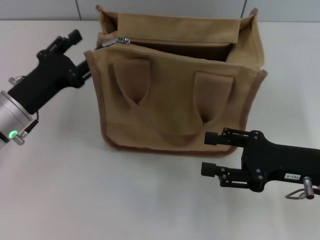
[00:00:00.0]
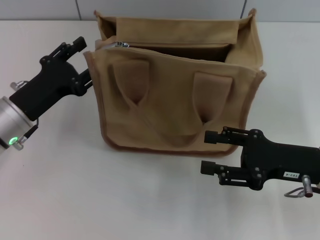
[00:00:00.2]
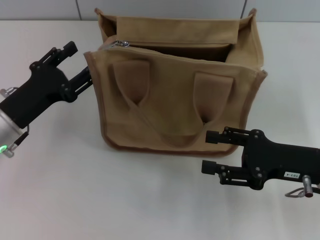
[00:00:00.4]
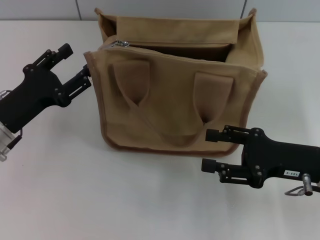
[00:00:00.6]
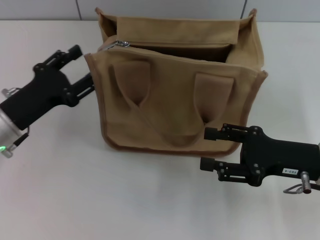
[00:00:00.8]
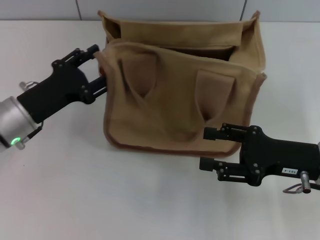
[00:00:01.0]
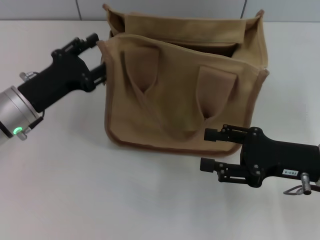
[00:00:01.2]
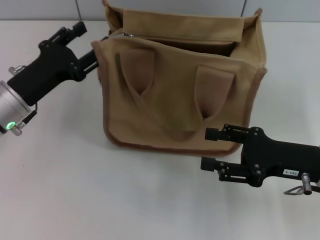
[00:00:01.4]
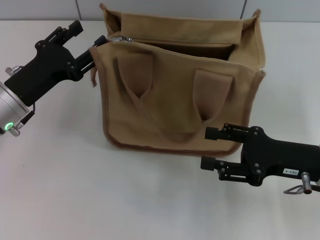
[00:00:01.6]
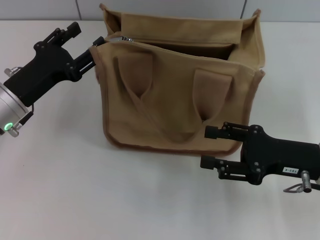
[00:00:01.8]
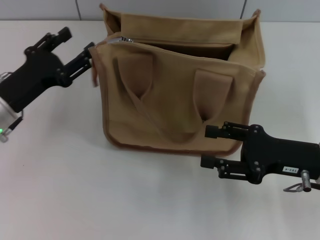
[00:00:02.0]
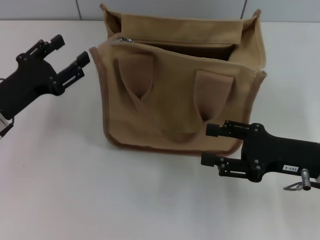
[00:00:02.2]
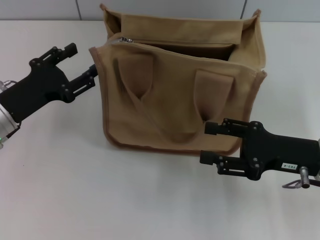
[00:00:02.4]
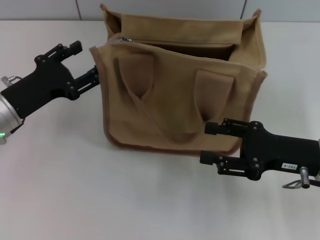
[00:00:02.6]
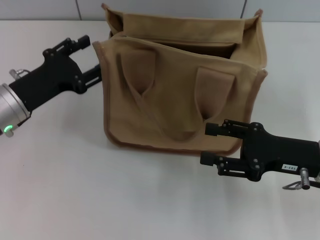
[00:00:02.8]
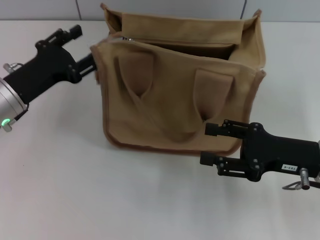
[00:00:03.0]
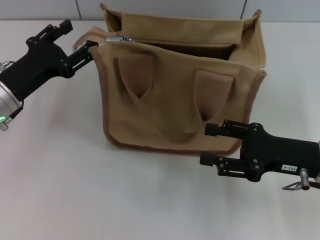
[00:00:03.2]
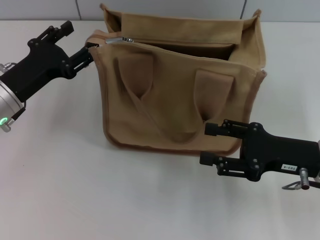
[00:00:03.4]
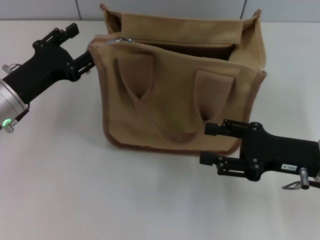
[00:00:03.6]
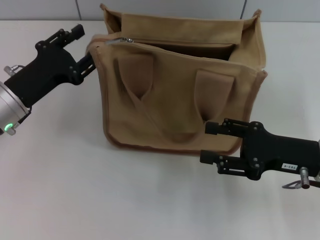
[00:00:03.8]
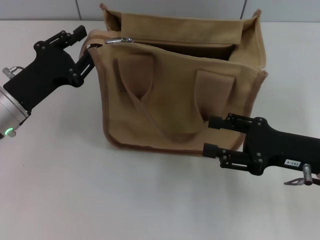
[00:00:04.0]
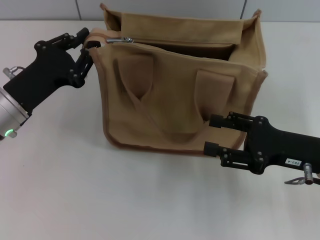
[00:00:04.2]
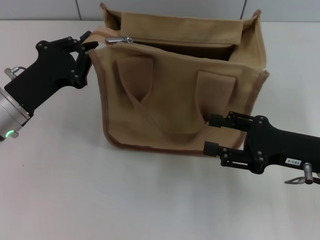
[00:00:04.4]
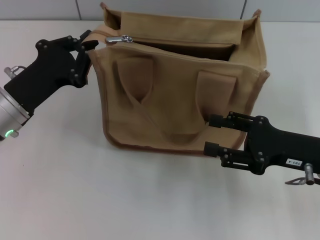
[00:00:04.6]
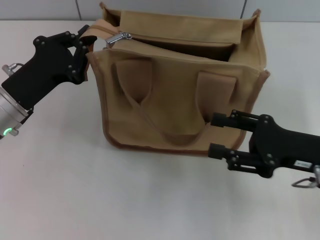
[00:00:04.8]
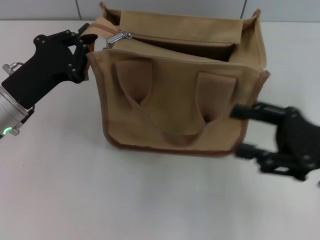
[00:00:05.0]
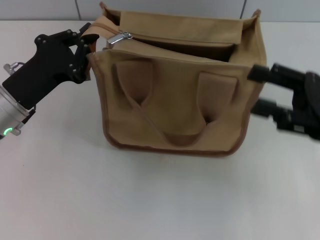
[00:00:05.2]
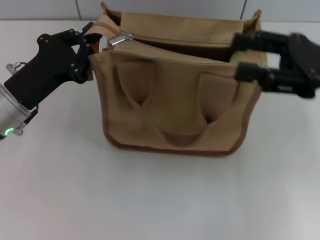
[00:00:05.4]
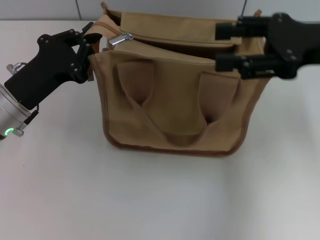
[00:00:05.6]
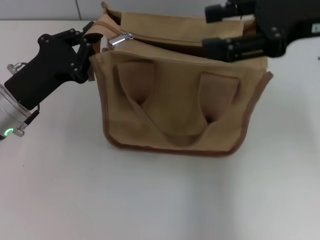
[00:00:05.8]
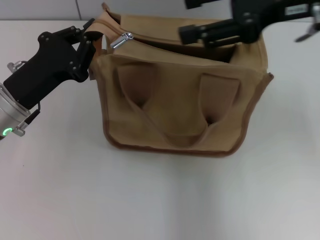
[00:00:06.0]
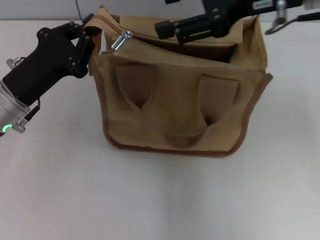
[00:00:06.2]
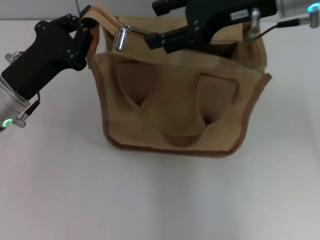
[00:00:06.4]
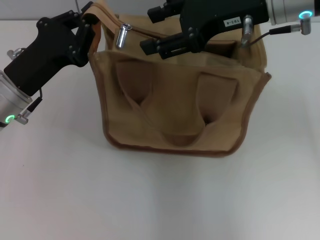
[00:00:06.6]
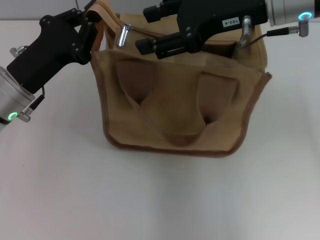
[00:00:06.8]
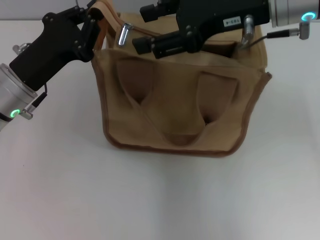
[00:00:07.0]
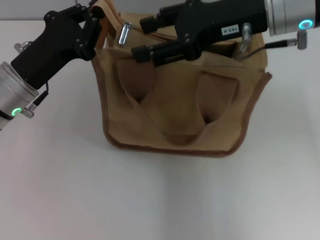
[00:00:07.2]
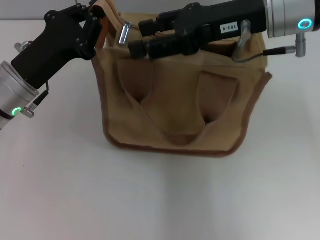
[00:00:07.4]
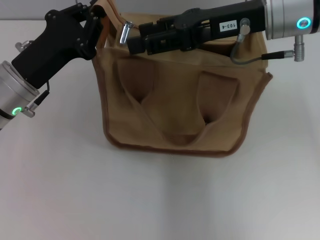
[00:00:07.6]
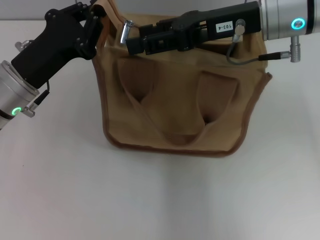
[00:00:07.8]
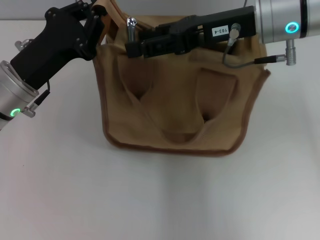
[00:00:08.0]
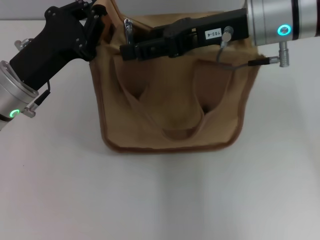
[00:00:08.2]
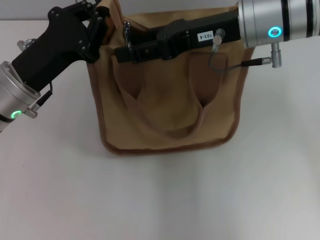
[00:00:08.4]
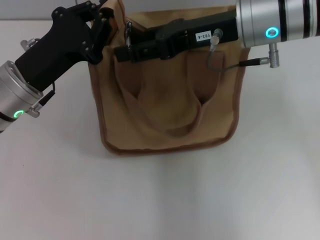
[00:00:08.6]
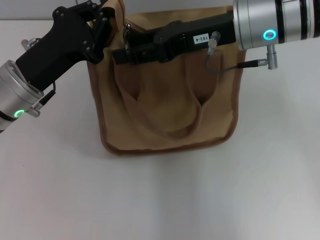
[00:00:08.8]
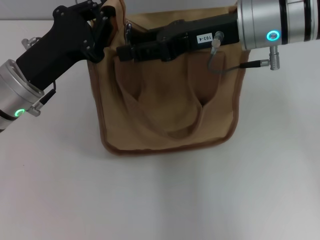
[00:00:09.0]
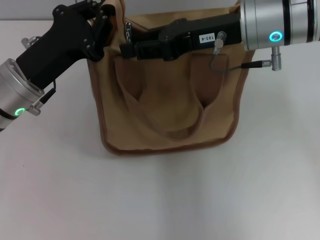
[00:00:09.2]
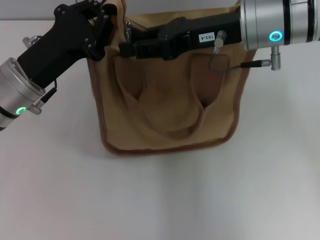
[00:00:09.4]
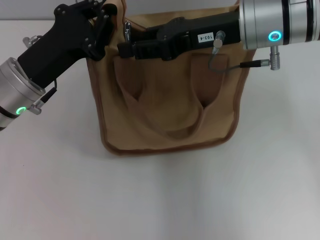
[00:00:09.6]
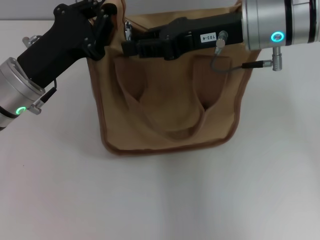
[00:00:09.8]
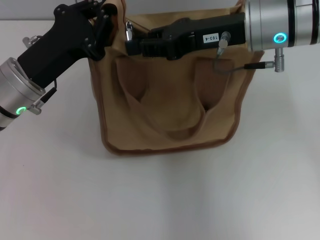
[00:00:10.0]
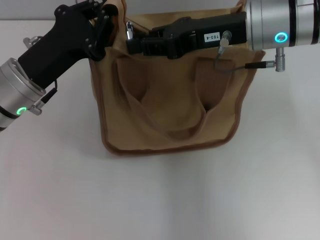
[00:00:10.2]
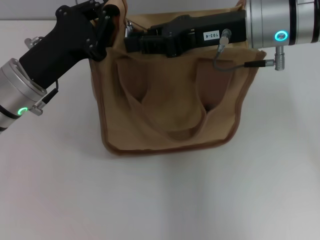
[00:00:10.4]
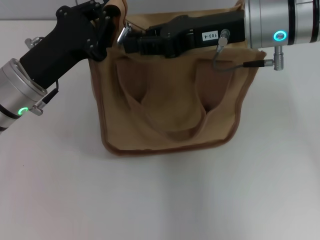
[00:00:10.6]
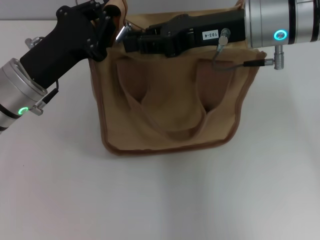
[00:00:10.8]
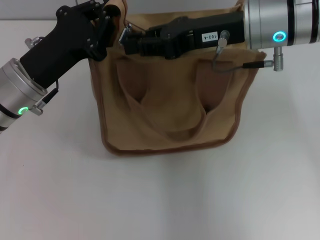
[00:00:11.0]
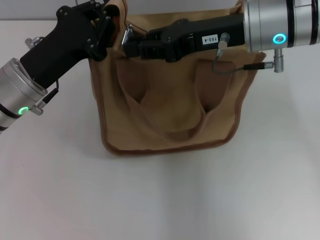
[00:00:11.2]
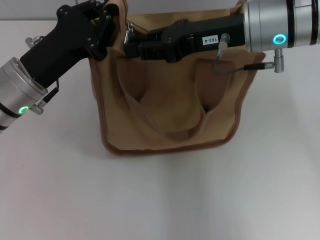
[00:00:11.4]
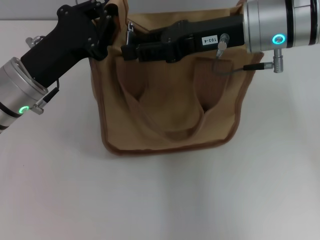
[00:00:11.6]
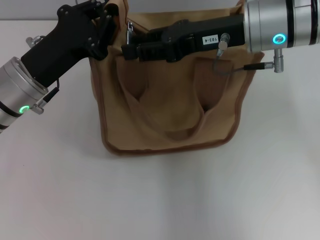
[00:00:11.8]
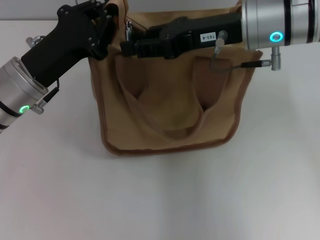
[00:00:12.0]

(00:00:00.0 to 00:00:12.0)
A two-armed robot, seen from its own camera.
00:00:00.0 - 00:00:03.0: There are only small adjustments of the grippers.
00:00:03.0 - 00:00:04.4: The left gripper closes up.
00:00:04.4 - 00:00:06.0: The right gripper is displaced upward and forward by roughly 25 cm.
00:00:06.0 - 00:00:07.6: The right gripper shifts by approximately 5 cm.
00:00:07.6 - 00:00:09.0: The grippers move only a little.
00:00:09.0 - 00:00:10.4: The right gripper closes up.
00:00:10.4 - 00:00:12.0: Both grippers stay put.

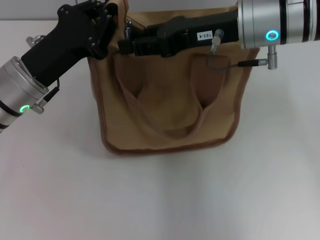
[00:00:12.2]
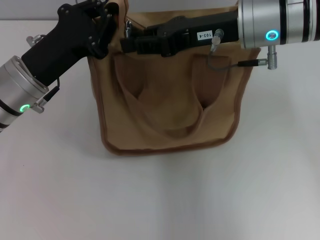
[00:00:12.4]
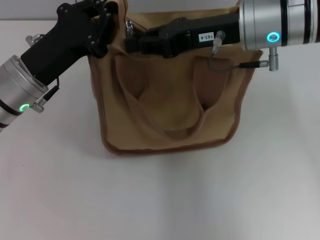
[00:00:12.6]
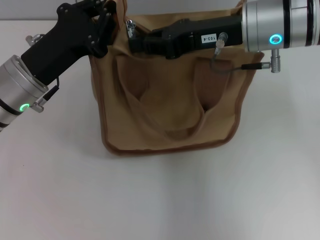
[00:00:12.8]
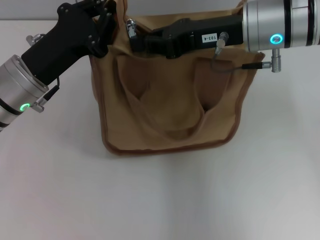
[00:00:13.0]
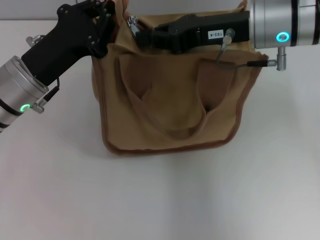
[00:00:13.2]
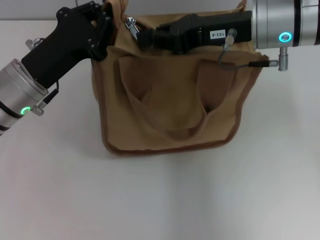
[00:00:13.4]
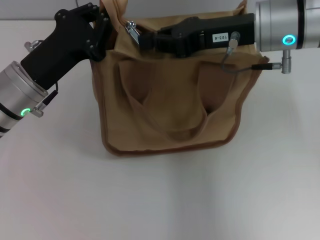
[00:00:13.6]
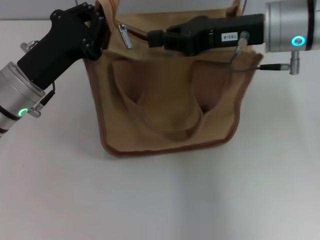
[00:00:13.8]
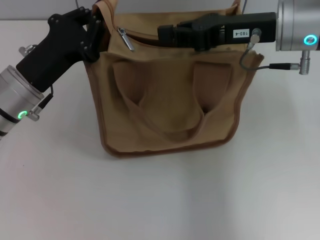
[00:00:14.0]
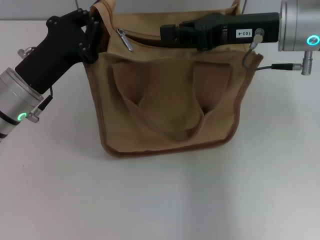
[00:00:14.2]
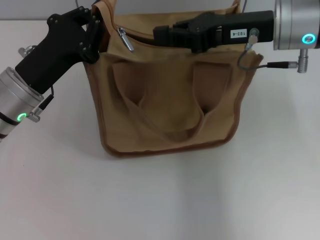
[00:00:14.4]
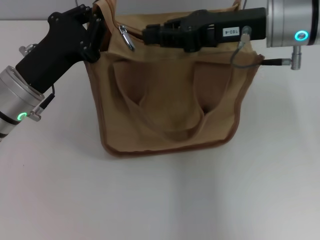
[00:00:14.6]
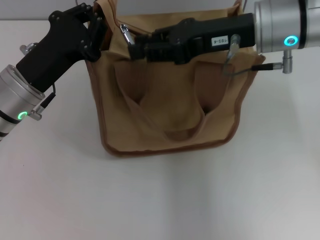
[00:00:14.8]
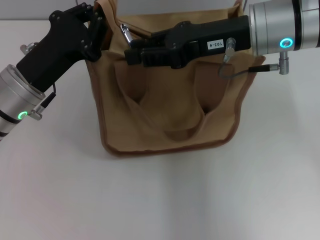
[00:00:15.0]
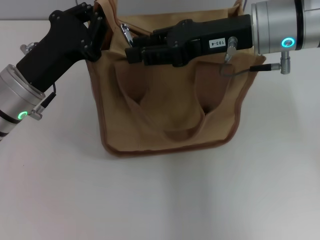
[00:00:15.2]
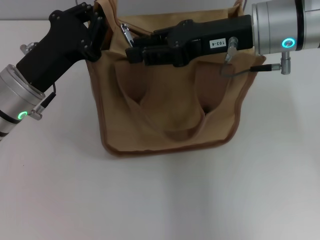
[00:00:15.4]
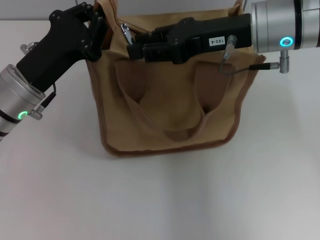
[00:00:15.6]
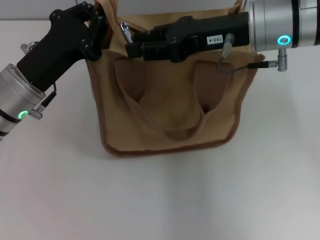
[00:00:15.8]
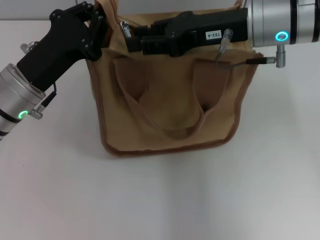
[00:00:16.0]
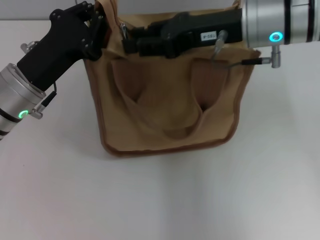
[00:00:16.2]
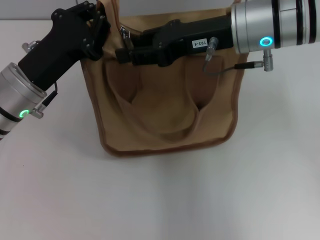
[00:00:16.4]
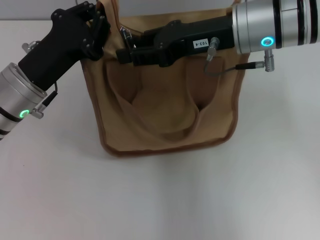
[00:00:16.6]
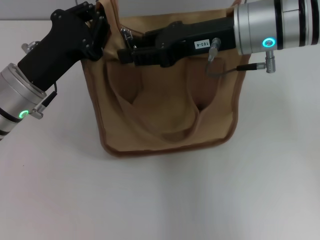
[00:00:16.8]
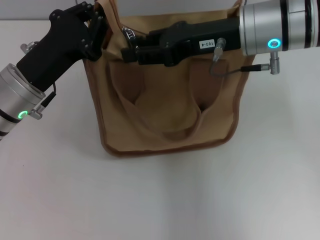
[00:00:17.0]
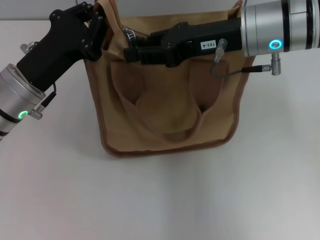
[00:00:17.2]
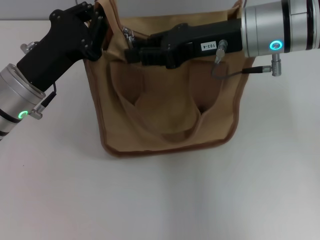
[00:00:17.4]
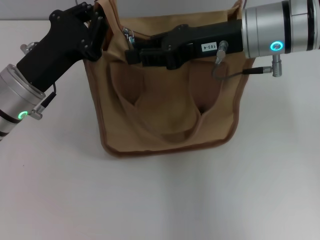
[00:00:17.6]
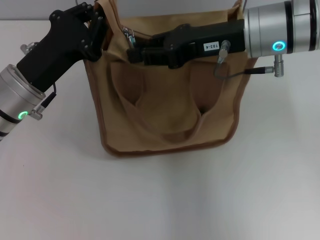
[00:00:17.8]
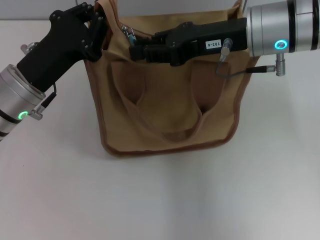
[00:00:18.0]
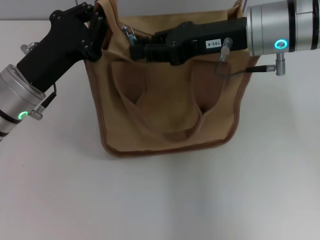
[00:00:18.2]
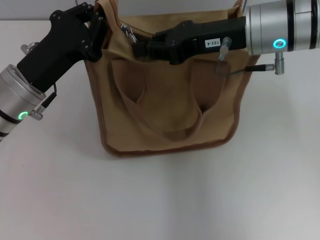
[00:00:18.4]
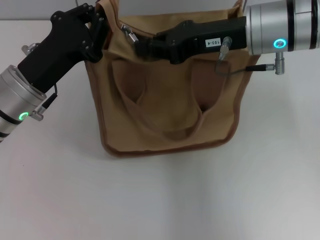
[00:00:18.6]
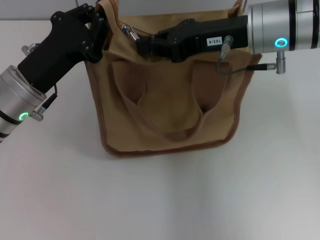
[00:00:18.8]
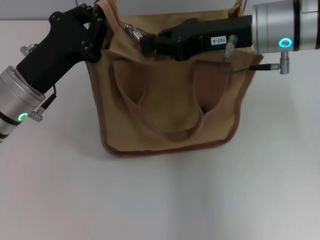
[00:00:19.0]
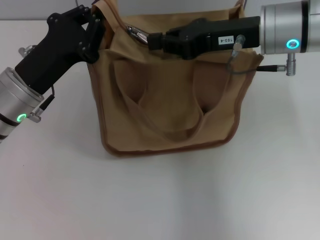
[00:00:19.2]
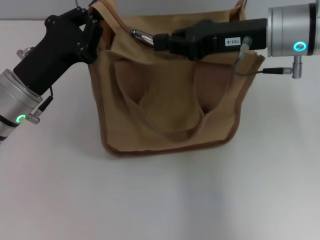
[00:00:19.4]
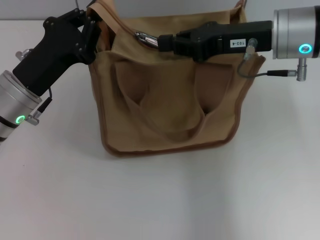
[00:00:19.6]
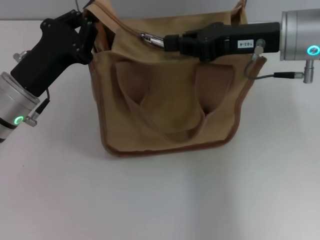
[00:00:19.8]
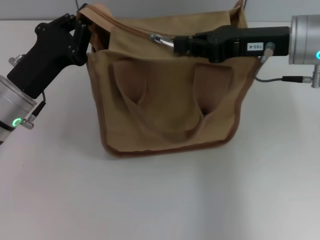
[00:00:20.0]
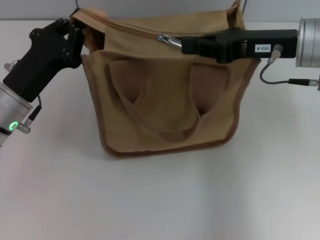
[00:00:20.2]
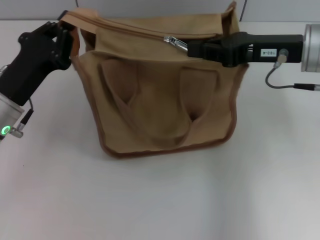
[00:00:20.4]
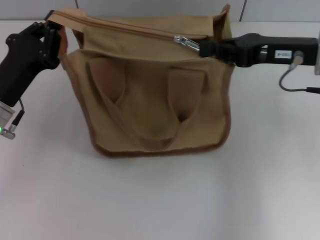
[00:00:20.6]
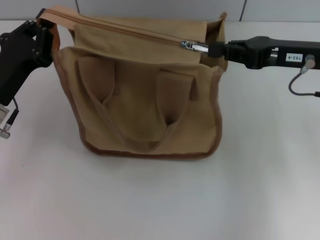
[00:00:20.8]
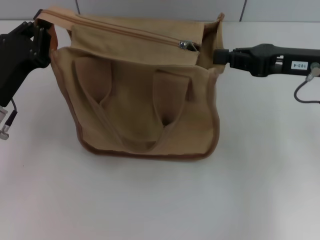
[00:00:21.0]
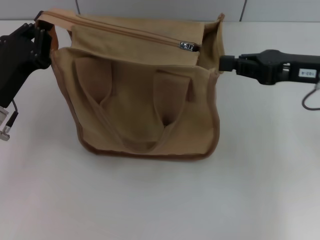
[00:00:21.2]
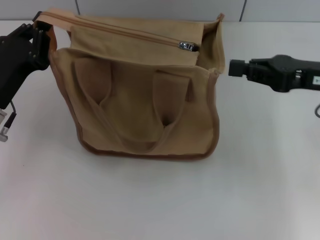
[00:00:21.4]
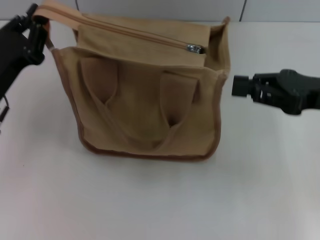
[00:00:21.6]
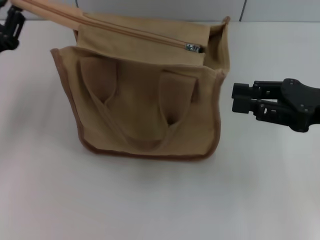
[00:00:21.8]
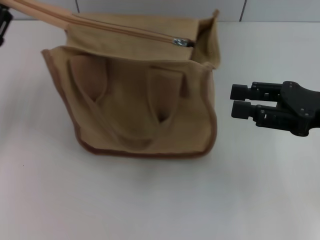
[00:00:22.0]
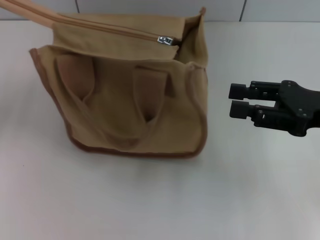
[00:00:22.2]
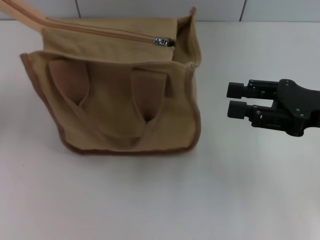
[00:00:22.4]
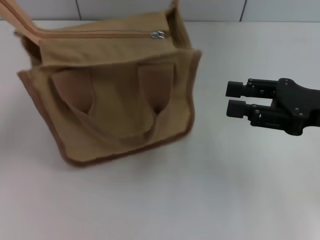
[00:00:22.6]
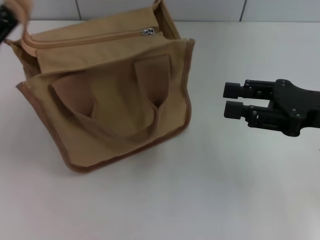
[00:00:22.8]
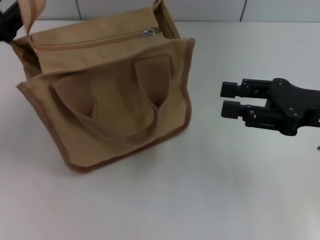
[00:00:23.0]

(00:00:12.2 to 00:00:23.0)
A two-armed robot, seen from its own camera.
Step, 00:00:12.2 - 00:00:20.8: Pull up the zipper with your right hand.
00:00:12.2 - 00:00:13.8: The right gripper closes.
00:00:13.8 - 00:00:15.2: The right gripper opens up.
00:00:15.2 - 00:00:16.8: The grippers make only small movements.
00:00:16.8 - 00:00:18.4: Both grippers stay put.
00:00:18.4 - 00:00:20.0: The right gripper moves to the right, roughly 5 cm.
00:00:20.0 - 00:00:21.4: The right gripper travels to the right by roughly 5 cm.
00:00:21.4 - 00:00:23.0: The left gripper moves upward, about 5 cm, and opens. The right gripper opens up.
